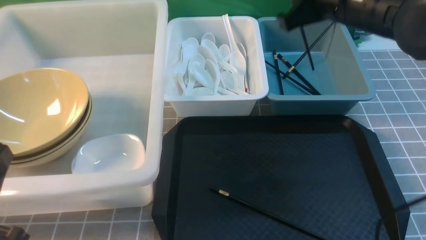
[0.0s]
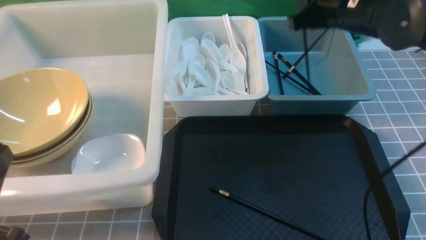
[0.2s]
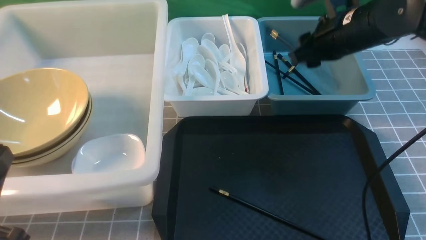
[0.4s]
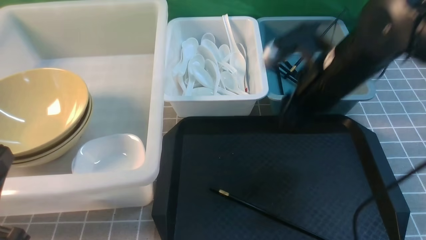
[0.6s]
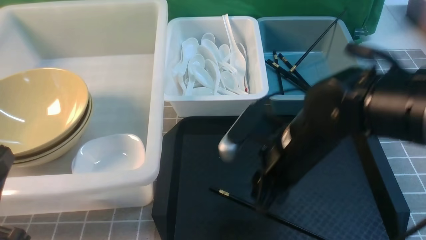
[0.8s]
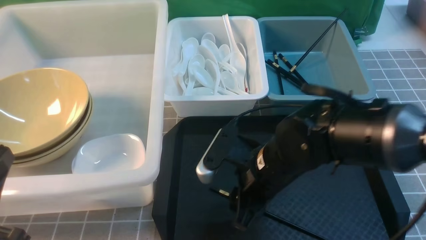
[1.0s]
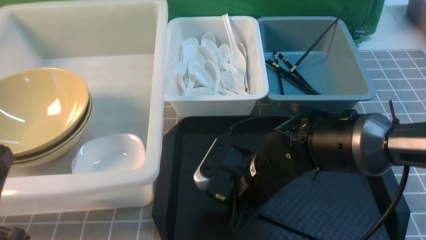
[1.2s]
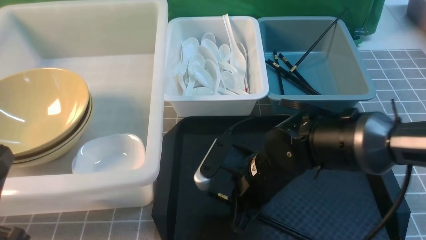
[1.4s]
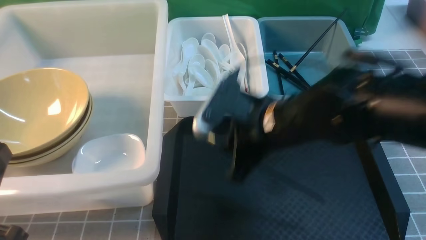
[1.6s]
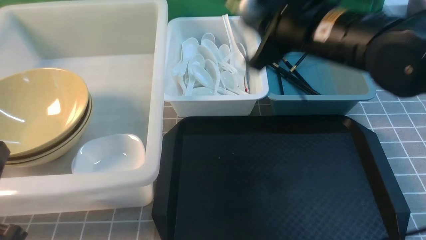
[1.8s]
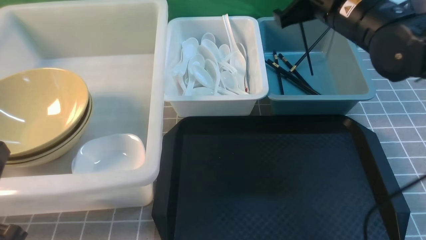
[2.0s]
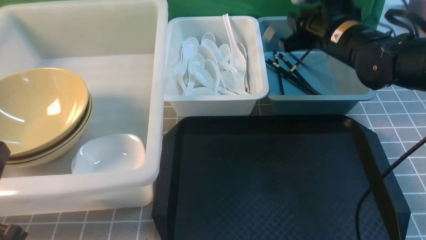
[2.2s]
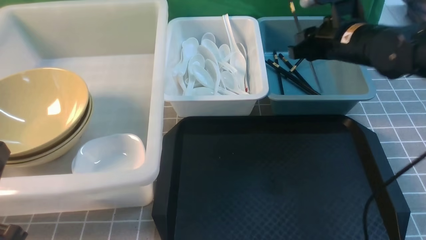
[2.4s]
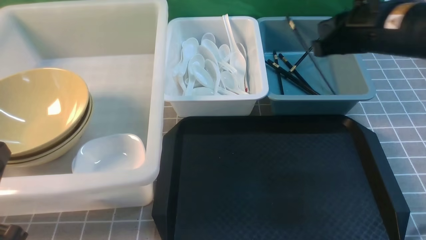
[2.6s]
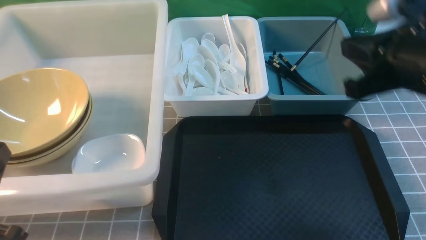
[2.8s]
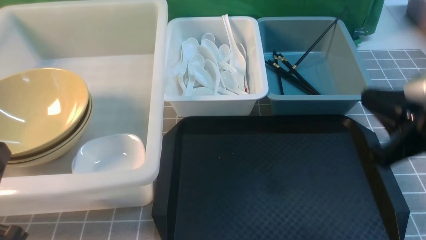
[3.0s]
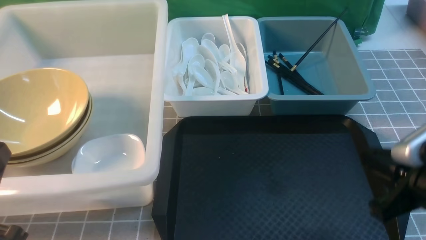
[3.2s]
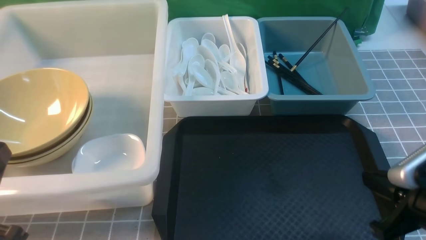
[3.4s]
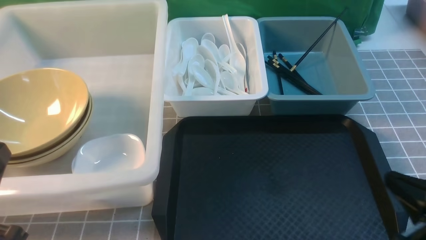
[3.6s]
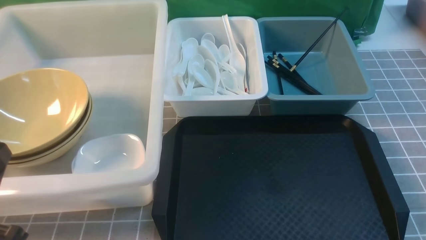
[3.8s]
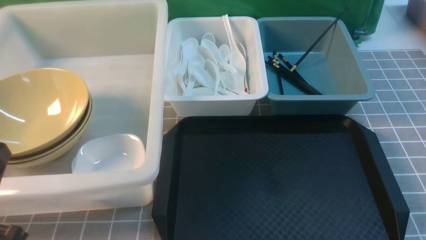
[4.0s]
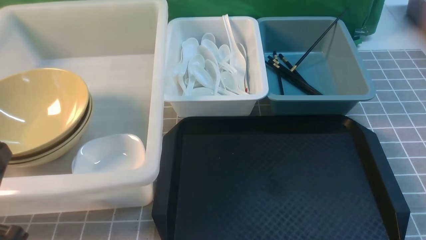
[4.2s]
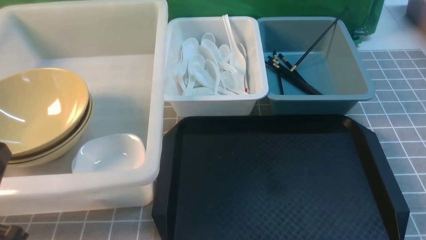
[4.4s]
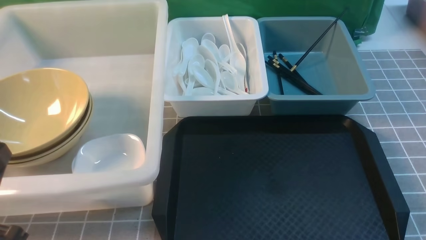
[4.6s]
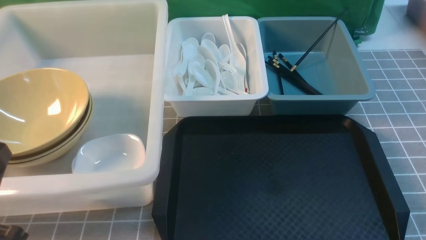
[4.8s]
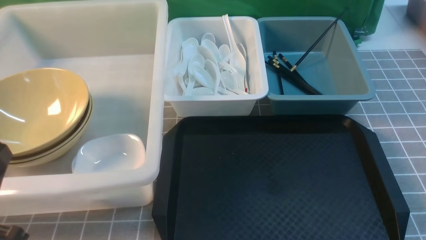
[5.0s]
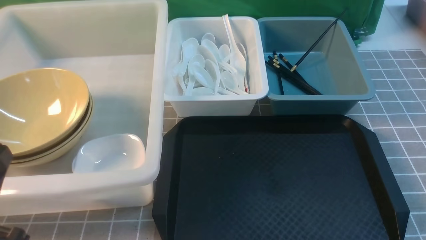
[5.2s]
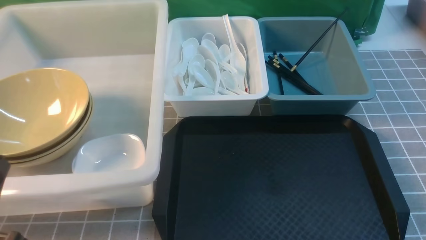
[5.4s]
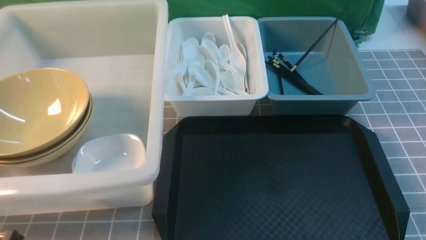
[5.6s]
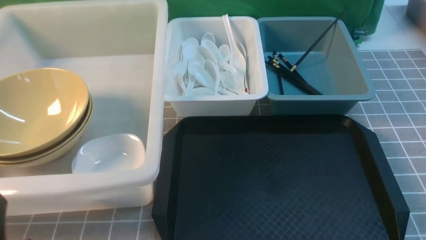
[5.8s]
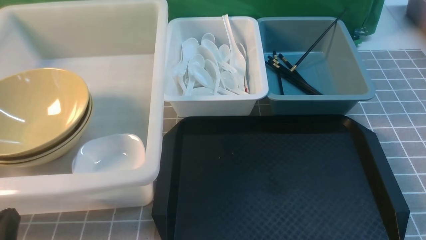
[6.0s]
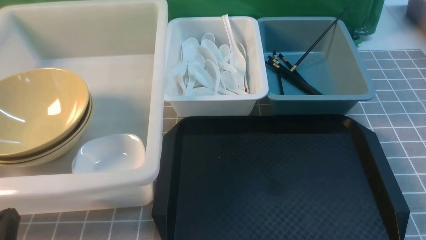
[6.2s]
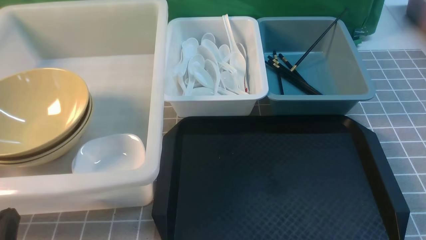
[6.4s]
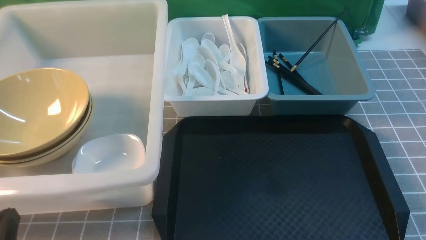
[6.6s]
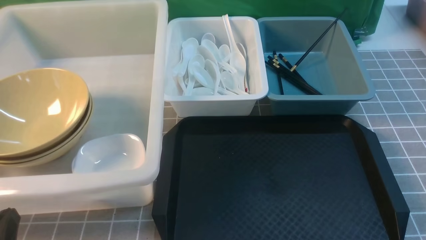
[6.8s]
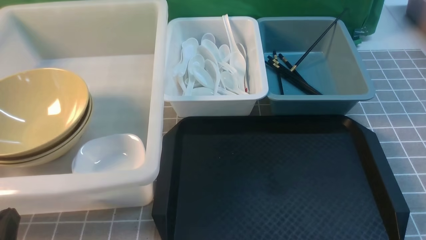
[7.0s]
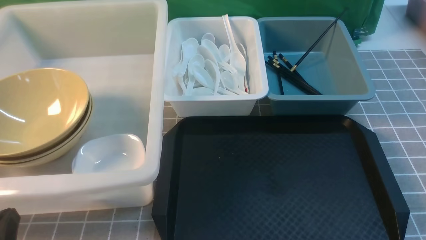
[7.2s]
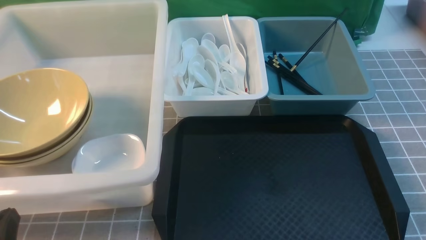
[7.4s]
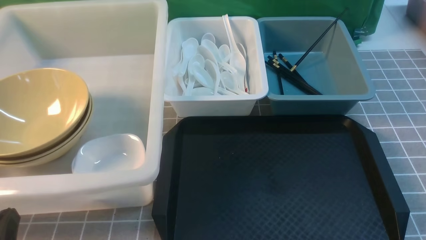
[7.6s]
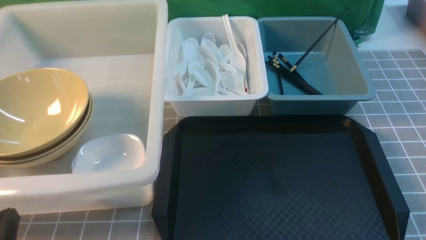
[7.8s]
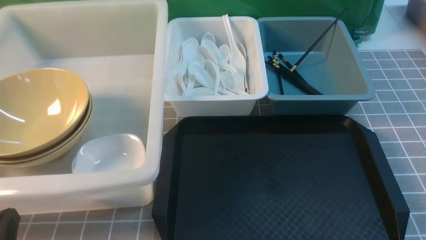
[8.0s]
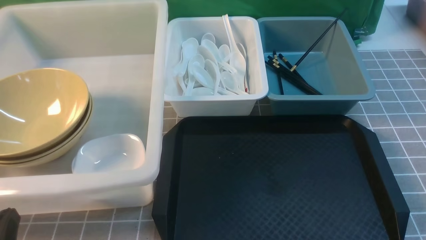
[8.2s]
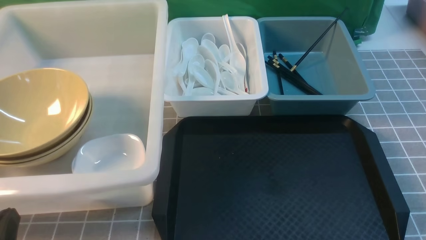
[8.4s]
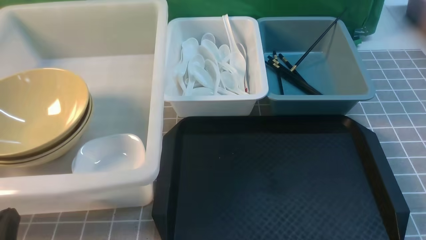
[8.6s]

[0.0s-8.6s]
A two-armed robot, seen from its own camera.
Task of the whole recording: on grey table put chopsticks spoon bowls plates into blue grey white boxes.
Step, 0.0s to 0.4s: use the right arm to put a chopstick into the small storage box on the right.
Step, 0.6s to 1.4s: use the right arm to grab a chopstick.
Step, 1.8s to 2.6s: use the right arm to put a chopstick into the small storage box on the right.
0.0s to 1.4s: The right gripper travels downward, to the left and backward by roughly 20 cm, and opens, then closes again.
1.4s to 2.8s: The right gripper travels upward and to the right by roughly 20 cm.
2.8s to 4.4s: The right gripper goes approximately 30 cm backward, downward and to the right.
4.4s to 5.8s: The left gripper moves downward, approximately 5 cm.
7.2s to 8.6s: Both grippers stay put.

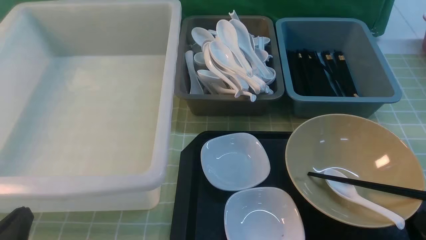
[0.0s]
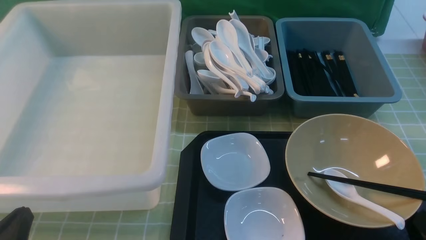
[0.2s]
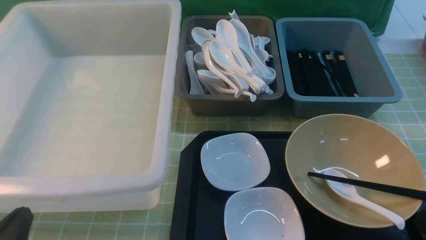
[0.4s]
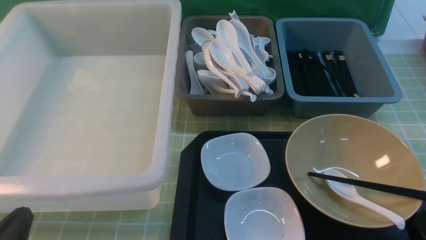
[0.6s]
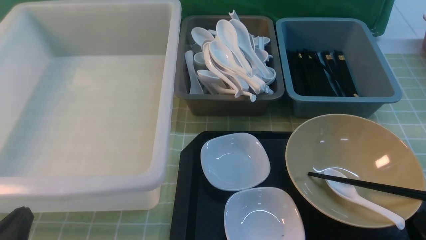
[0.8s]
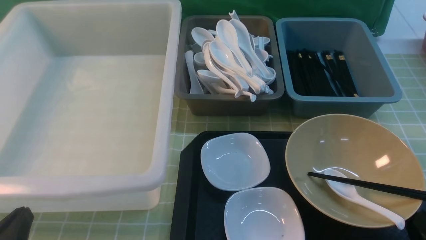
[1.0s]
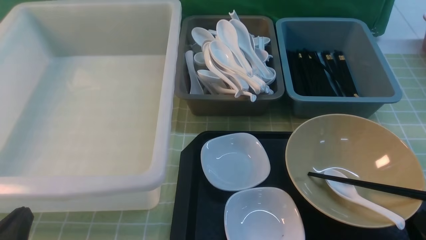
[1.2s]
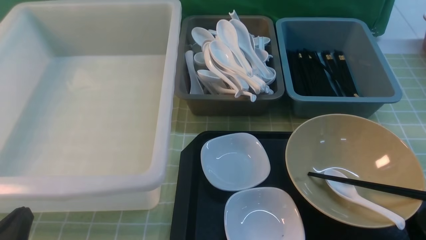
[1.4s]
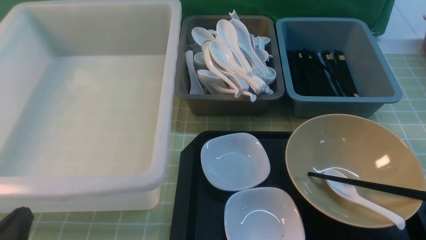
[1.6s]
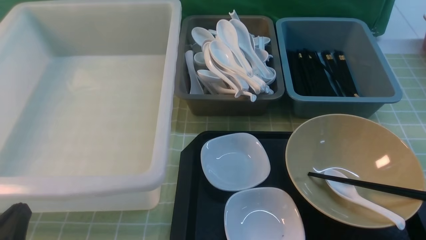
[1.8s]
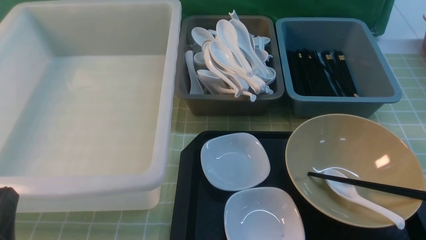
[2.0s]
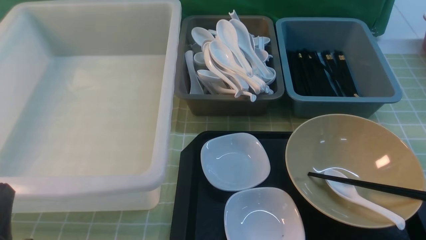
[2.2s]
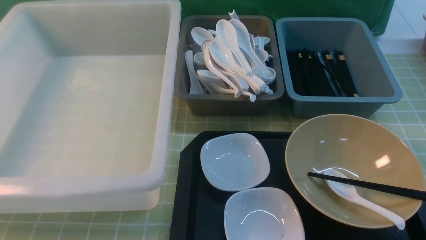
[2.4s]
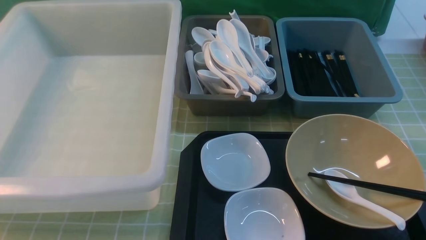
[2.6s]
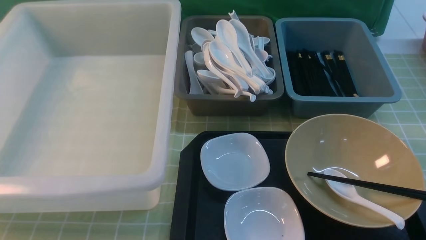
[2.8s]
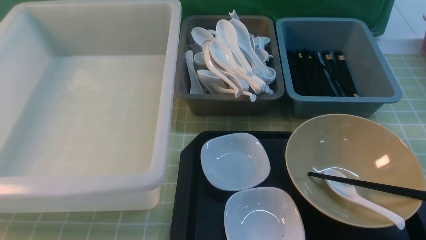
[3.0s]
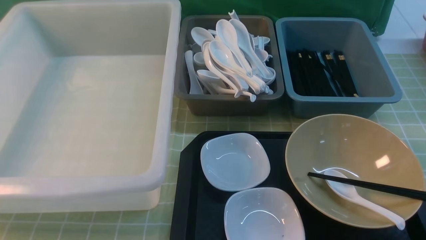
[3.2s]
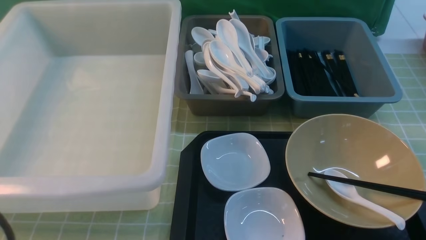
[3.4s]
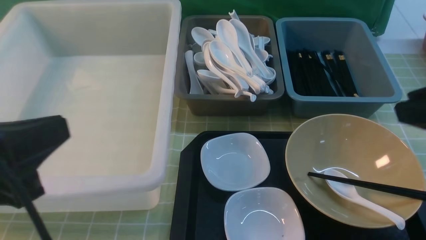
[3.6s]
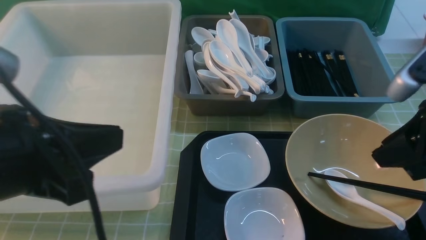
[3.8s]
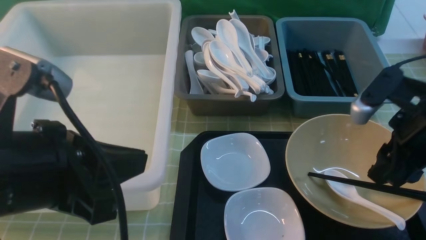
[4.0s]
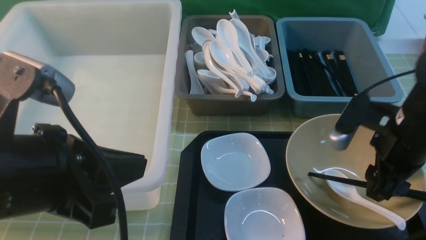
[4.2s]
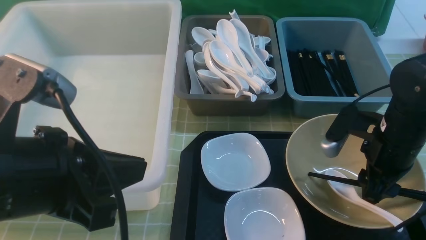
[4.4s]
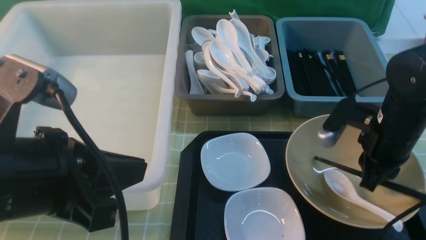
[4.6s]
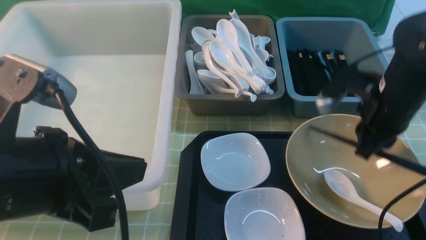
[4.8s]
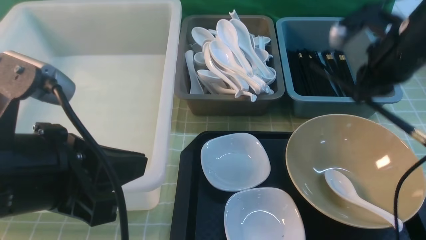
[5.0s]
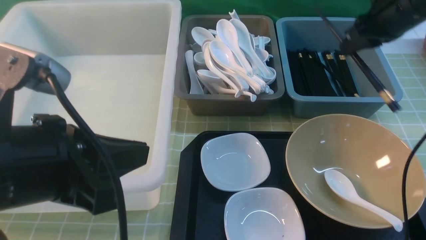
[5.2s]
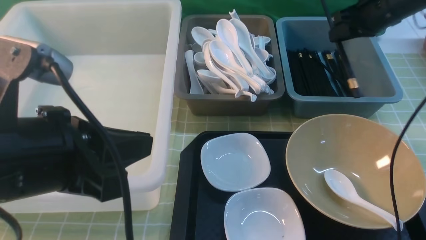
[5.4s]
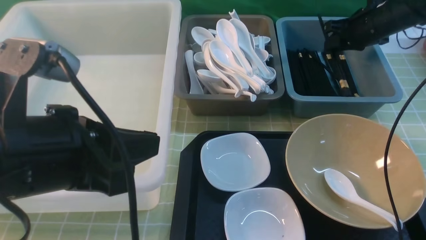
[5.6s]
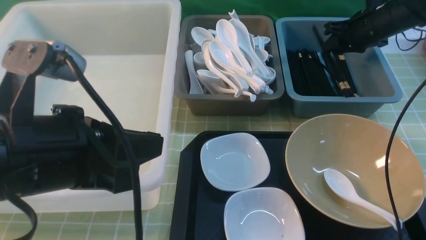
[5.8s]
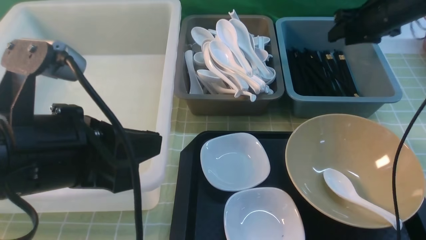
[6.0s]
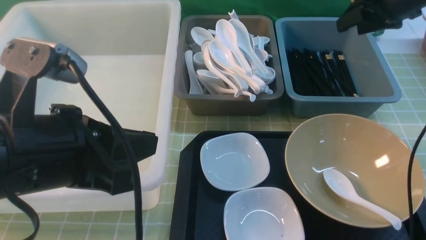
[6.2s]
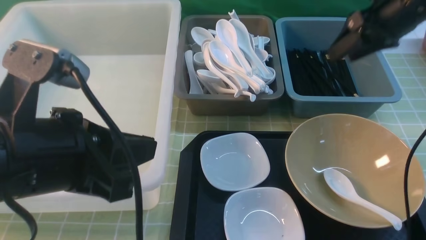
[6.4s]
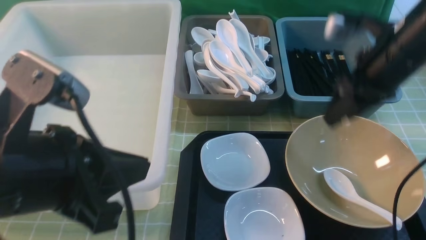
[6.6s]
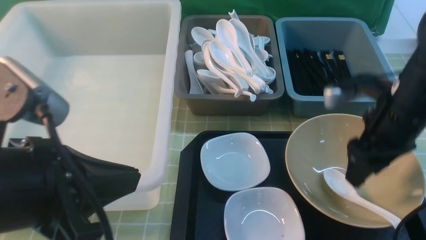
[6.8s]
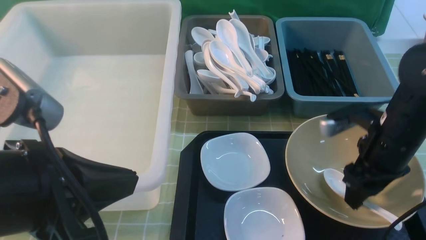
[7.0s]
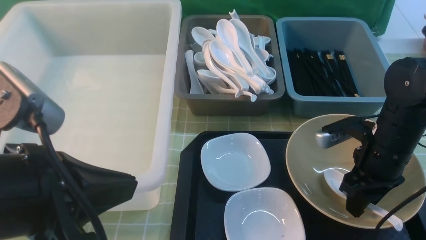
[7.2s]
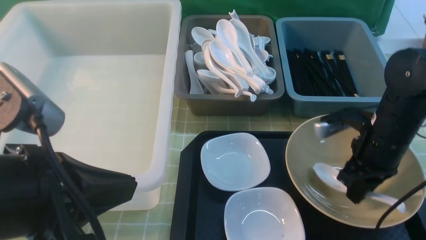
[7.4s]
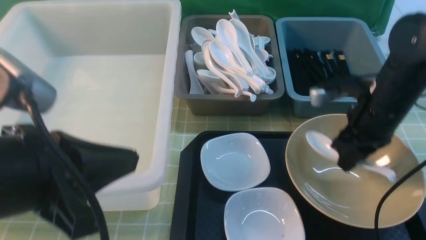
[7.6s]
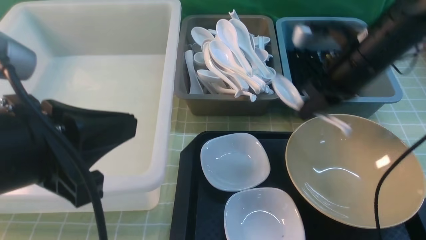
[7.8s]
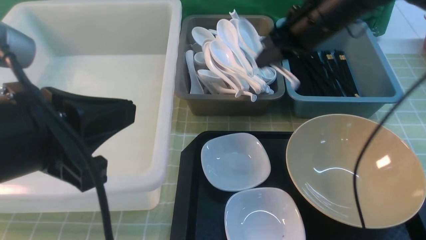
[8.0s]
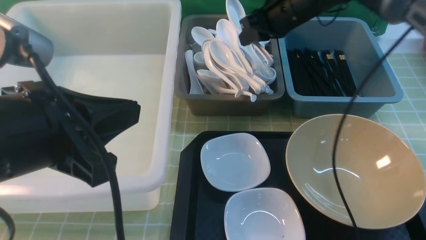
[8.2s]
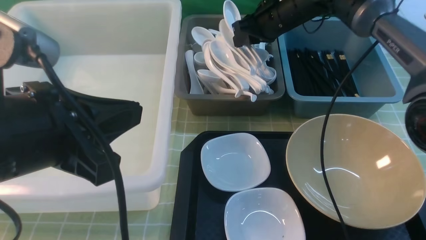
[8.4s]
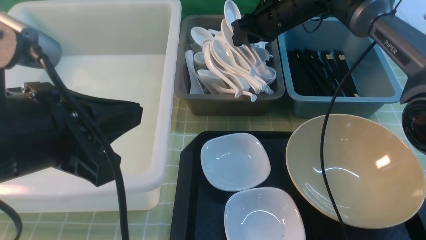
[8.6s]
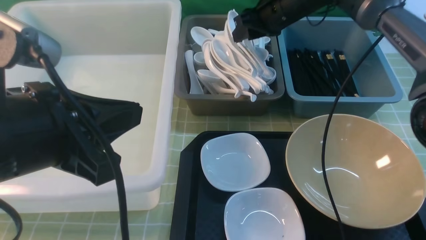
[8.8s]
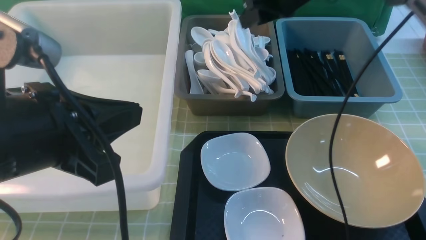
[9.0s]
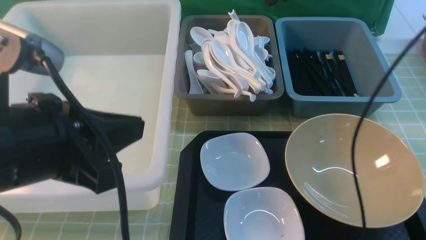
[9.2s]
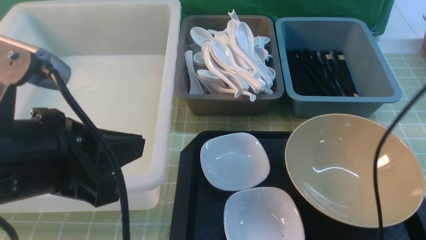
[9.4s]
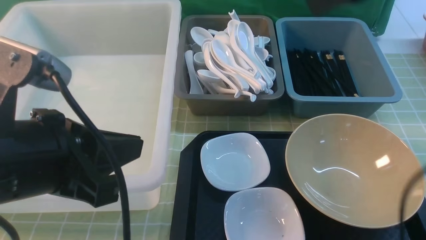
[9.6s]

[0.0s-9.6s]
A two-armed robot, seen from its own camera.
Task of the whole recording: on green table put chopsticks spoon bowls plates into blue grey white boxes.
Step, 0.0s to 4.6s: use the right arm to grab a chopstick.
Step, 5.0s to 6.2s: use the right arm to put a chopstick into the small storage box on the right.
Step, 6.6s to 7.6s: use the right arm to grab the soup spoon in the middle.
Step, 7.8s to 9.0s: use the right arm to put the soup spoon into the small storage box in the middle.
1.6s to 3.2s: The left gripper travels upward by approximately 20 cm.
3.2s to 4.8s: The right gripper goes approximately 25 cm forward and downward, and opens and closes again; the left gripper goes roughly 10 cm to the right.
4.8s to 6.4s: The right gripper heads forward and upward, covering some 10 cm, and opens.
6.4s to 8.0s: The right gripper moves to the left, roughly 10 cm, goes backward and returns, roughly 10 cm each way, and closes its fingers.
8.0s to 9.6s: The right gripper is displaced backward and upward by approximately 20 cm.
